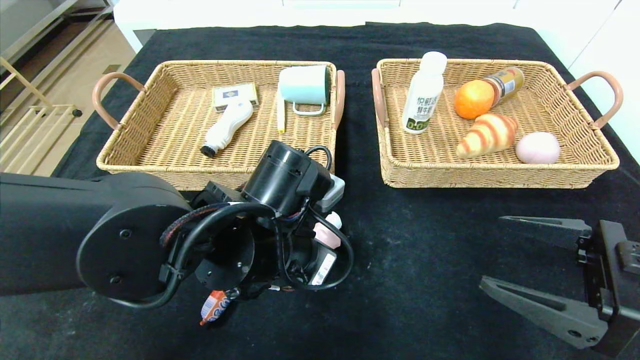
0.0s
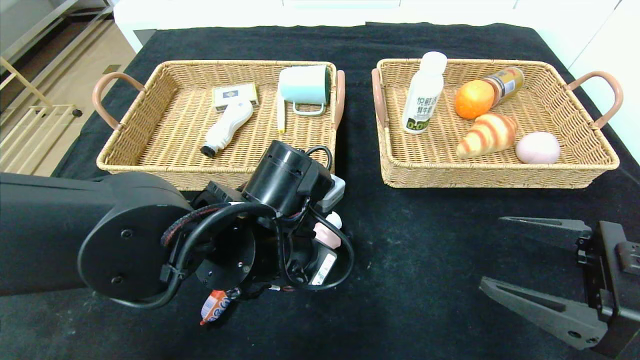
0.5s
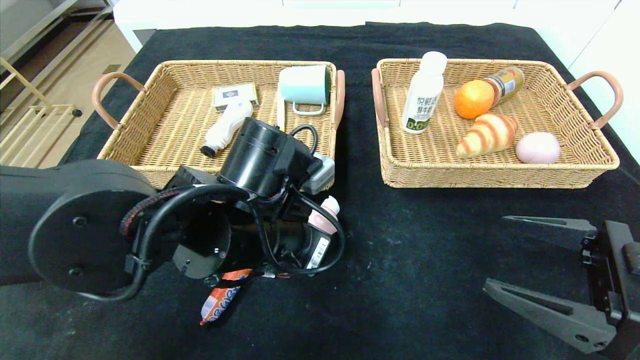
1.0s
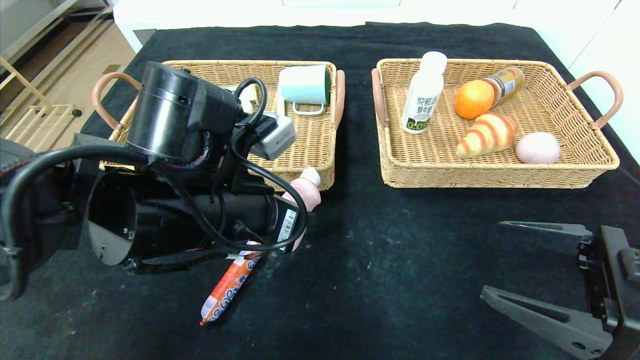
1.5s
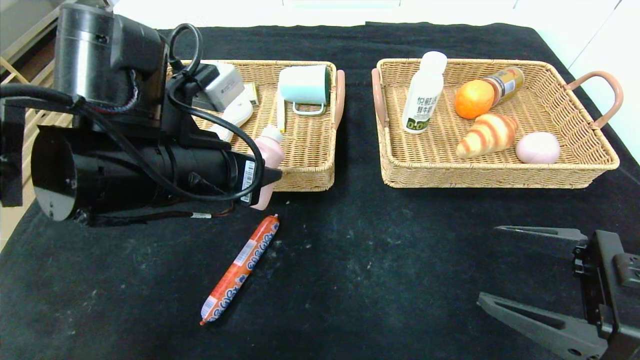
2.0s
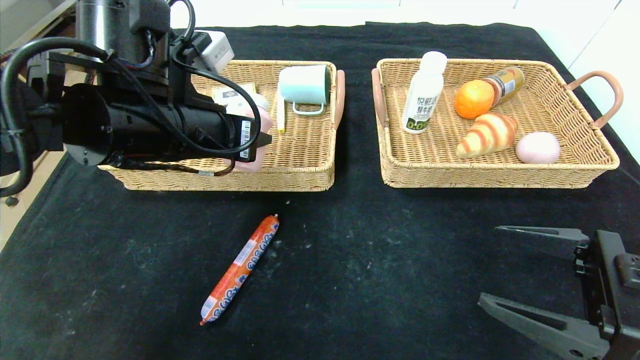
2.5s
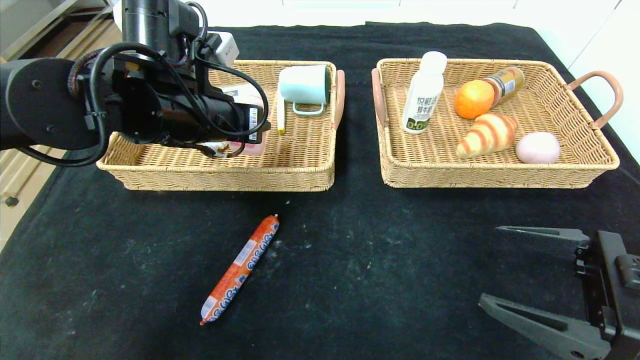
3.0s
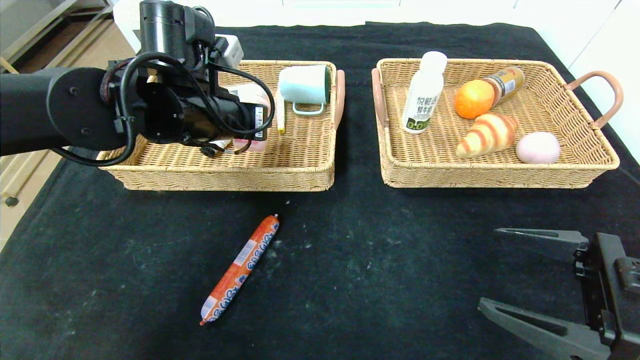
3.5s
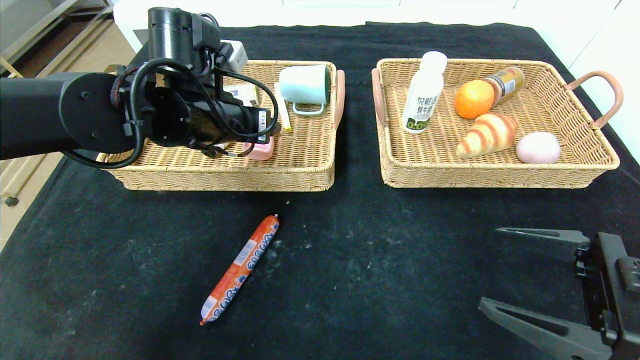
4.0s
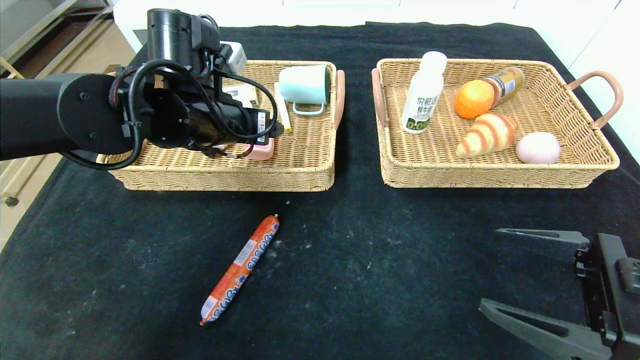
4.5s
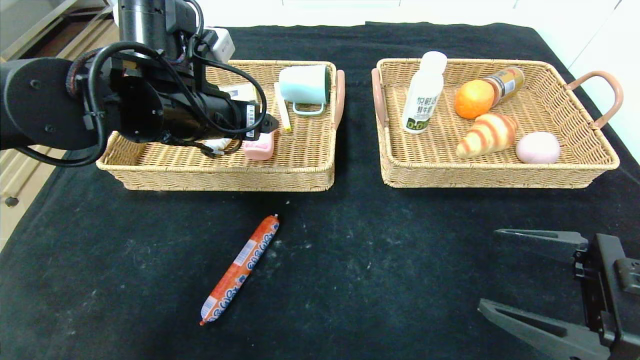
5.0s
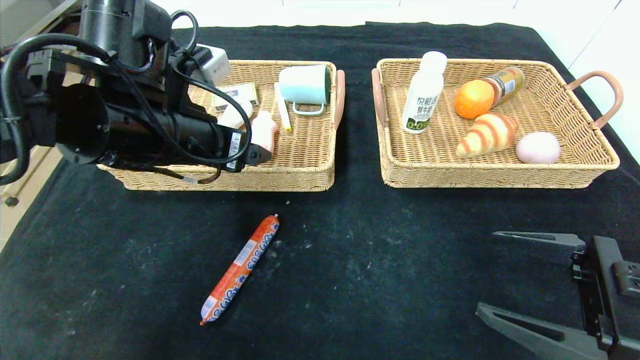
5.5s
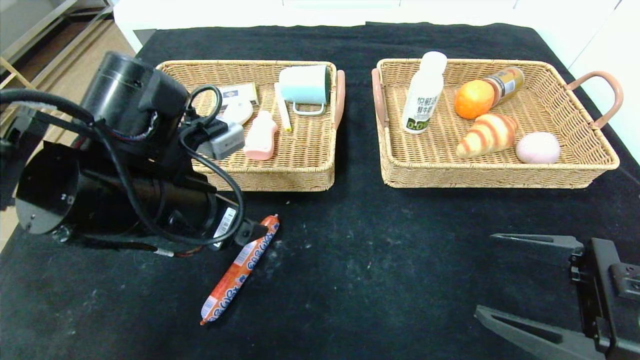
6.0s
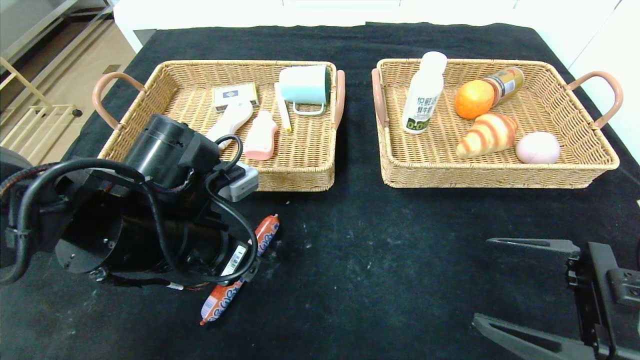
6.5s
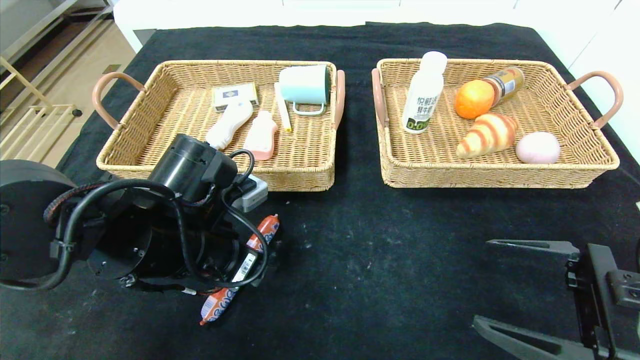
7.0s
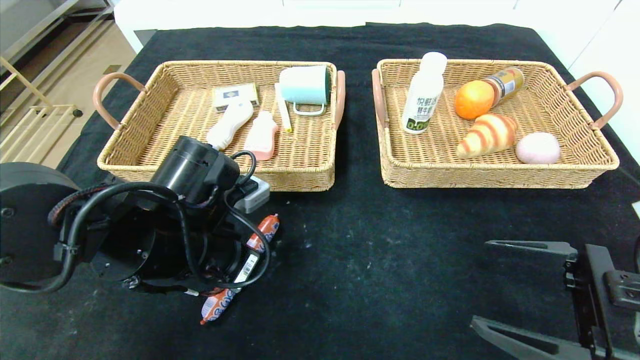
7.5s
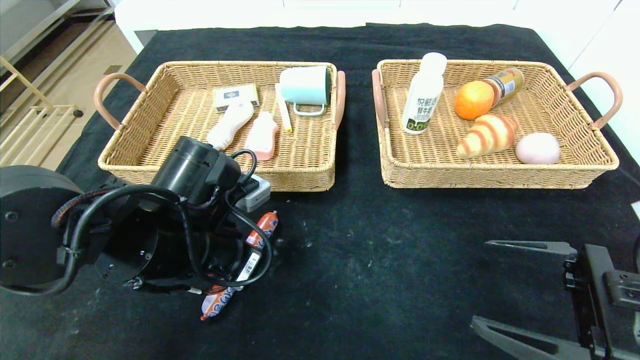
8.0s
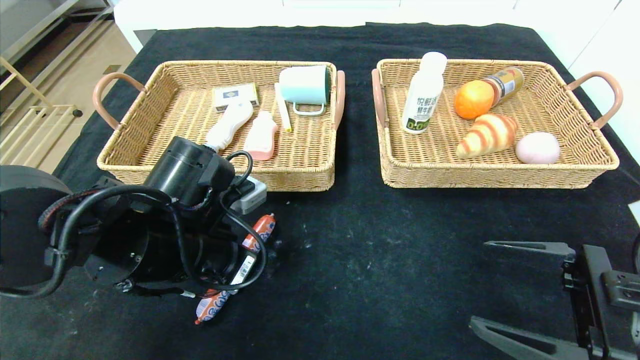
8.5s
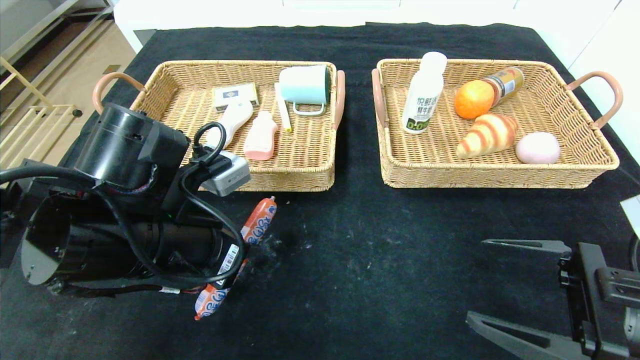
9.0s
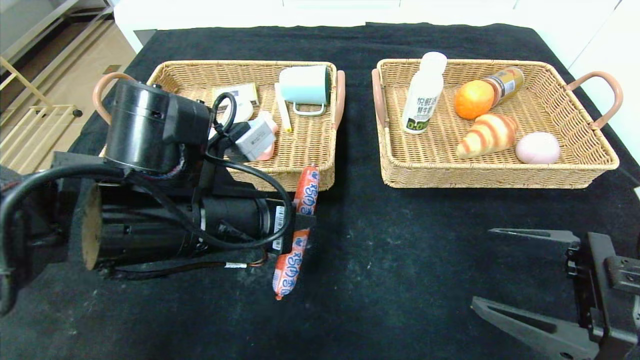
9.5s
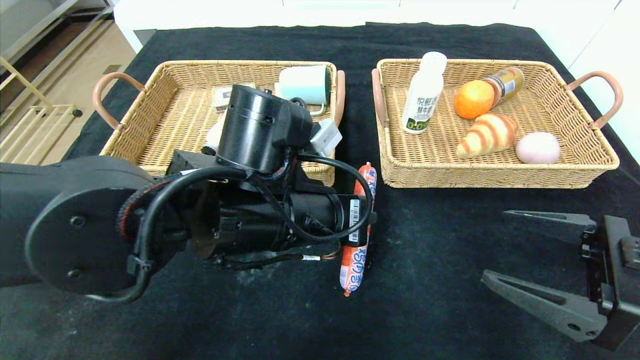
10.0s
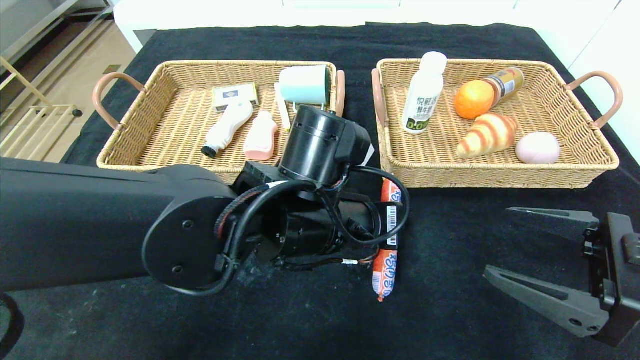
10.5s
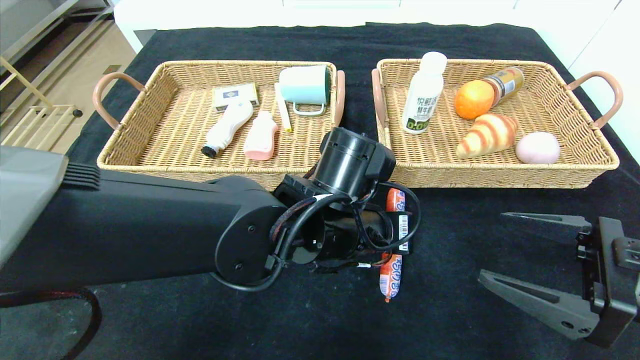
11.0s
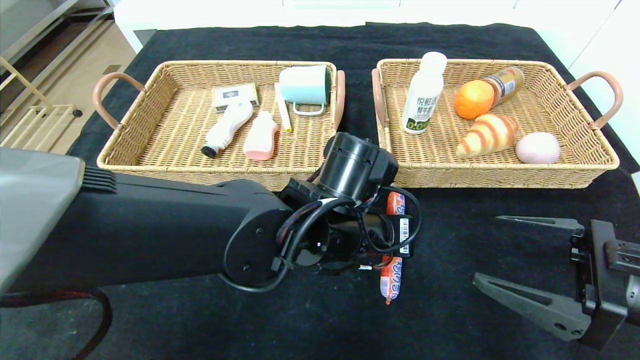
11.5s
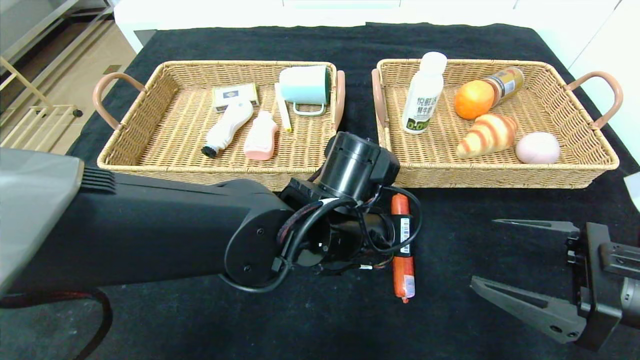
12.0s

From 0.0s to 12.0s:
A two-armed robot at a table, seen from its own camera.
Step, from 0.0s to 3.5s: Grasp the detergent and put it in the left basket.
From 0.0s to 2.0s: The left gripper heads upward and to the left, covering roughly 10 cm.
From 2.0s to 4.0s: The left gripper goes roughly 10 cm forward, and opens up.
From 4.0s to 6.0s: The left gripper is displaced backward by some 10 cm.
From 6.0s to 8.0s: The left gripper shifts approximately 5 cm downward, and closes.
From 8.0s to 10.0s: The left gripper heads to the right, covering approximately 10 cm.
From 10.0s to 12.0s: The left gripper shifts approximately 5 cm to the right, and opens its fingers.

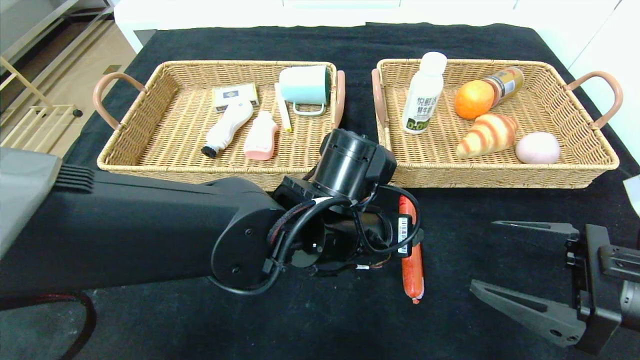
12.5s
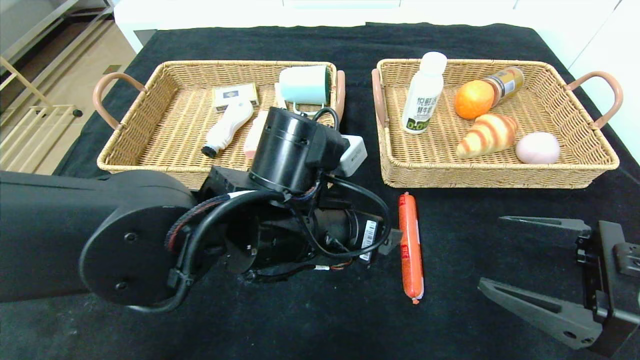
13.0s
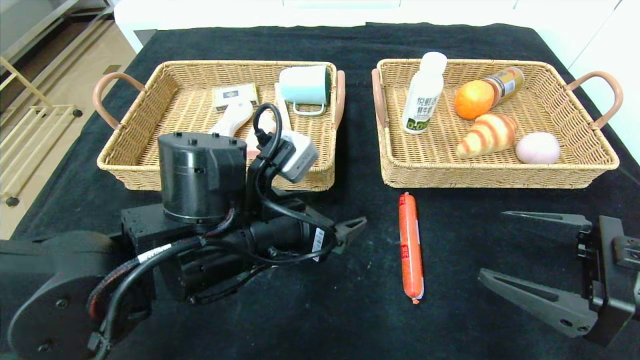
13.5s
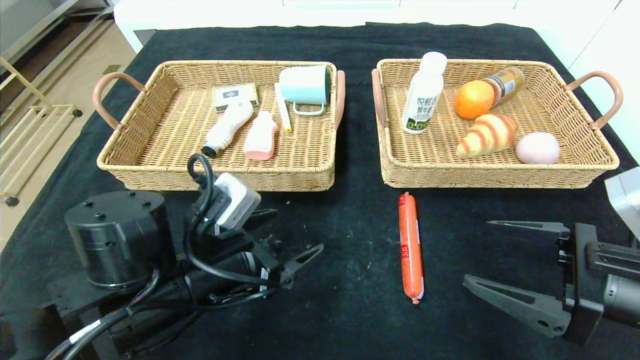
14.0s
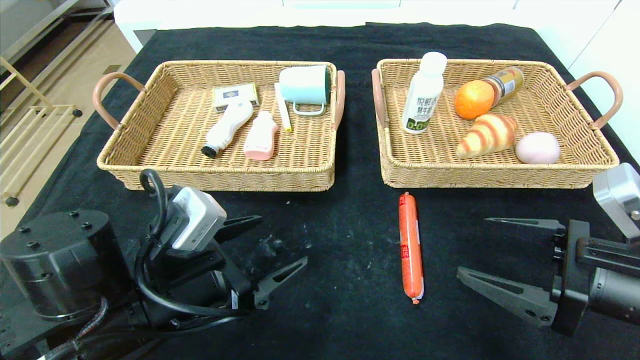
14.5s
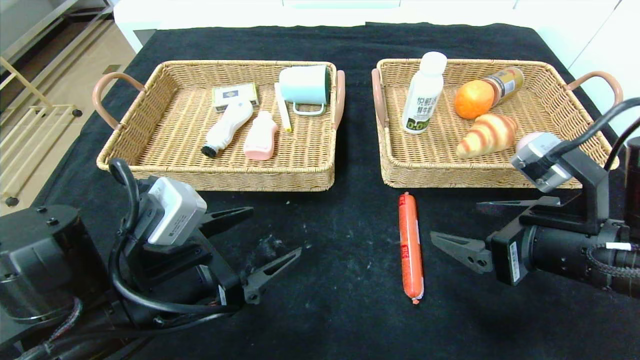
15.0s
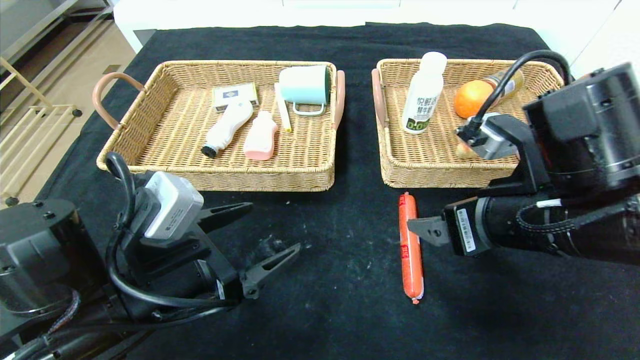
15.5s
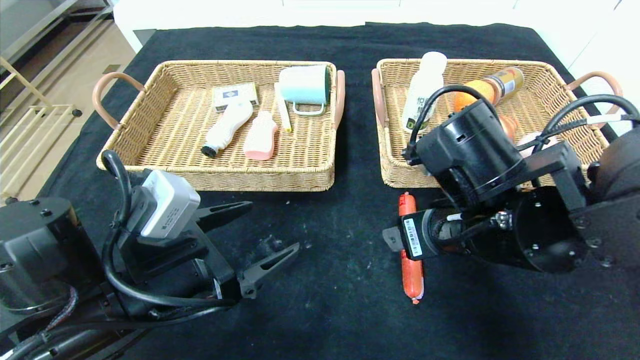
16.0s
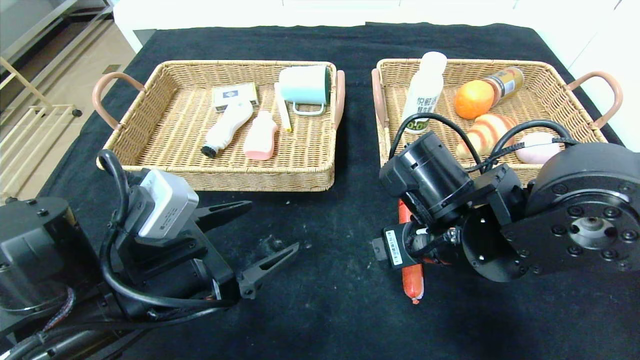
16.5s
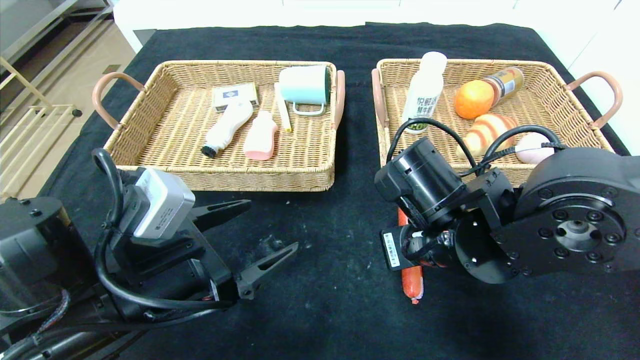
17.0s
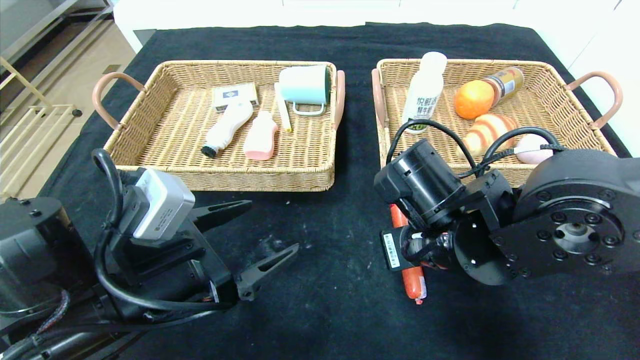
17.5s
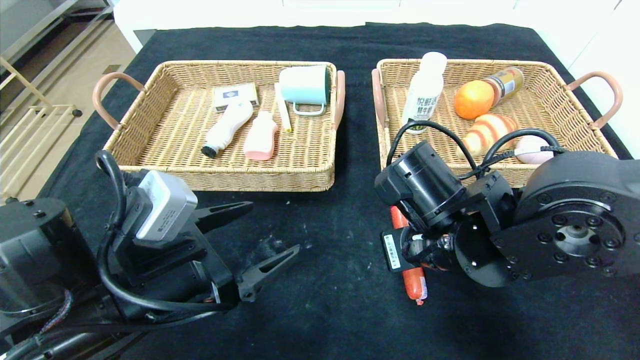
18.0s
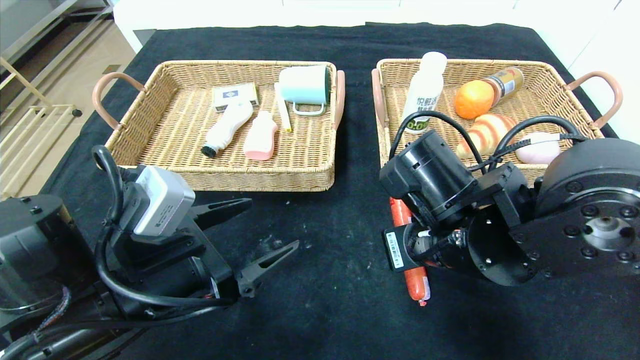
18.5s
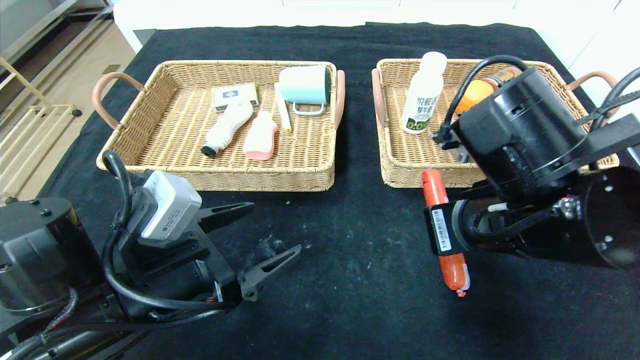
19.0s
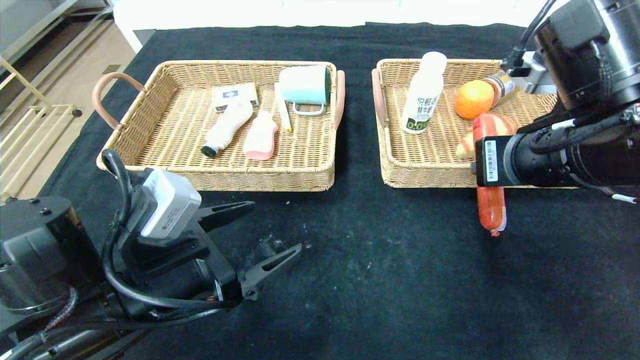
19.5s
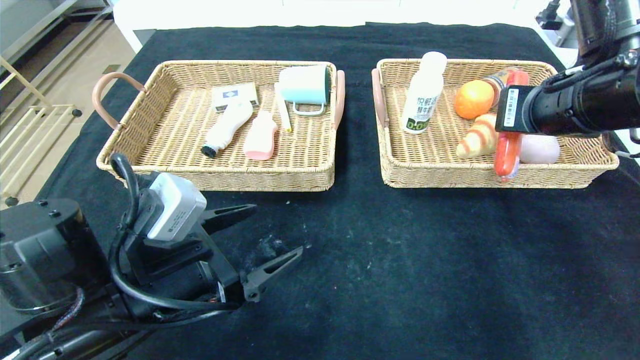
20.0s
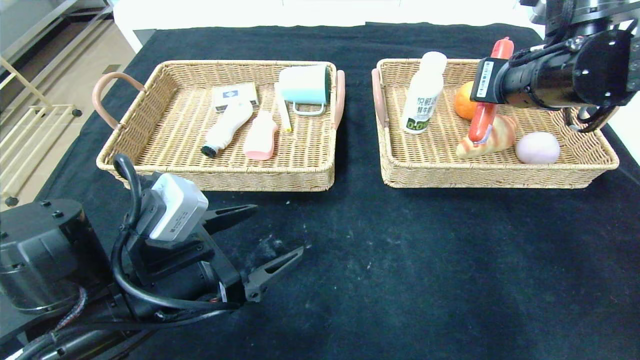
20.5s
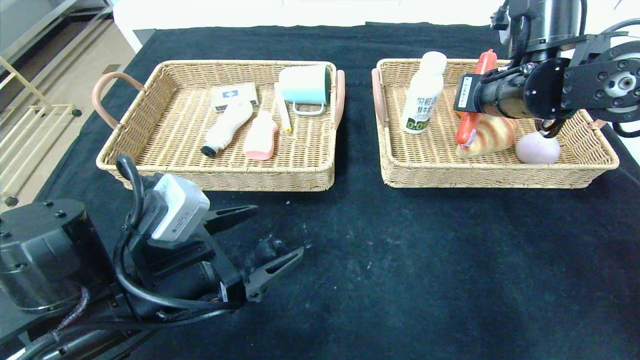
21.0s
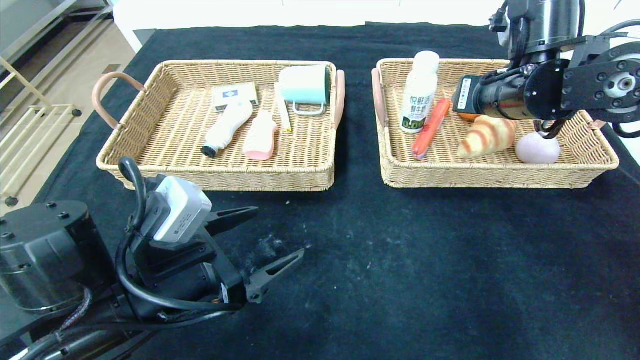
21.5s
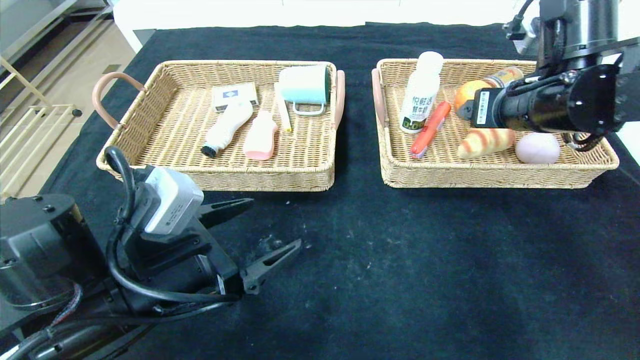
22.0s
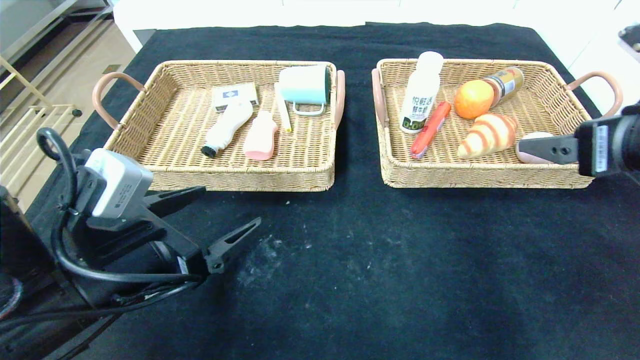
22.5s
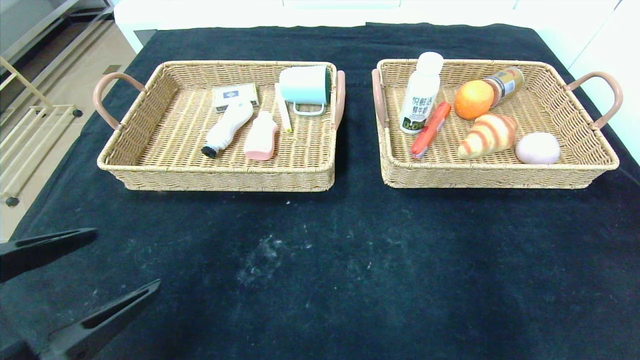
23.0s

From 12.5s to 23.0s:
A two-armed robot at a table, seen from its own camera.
Step, from 12.5s to 21.5s: Grasp the sausage and put it in the right basket.
From 12.5s to 14.5s: The left gripper goes approximately 15 cm to the left.
From 14.5s to 16.5s: The right gripper goes roughly 15 cm to the left and forward.
From 16.5s to 19.0s: The right gripper moves upward, some 5 cm, and closes its fingers.
From 19.0s to 21.0s: The right gripper moves forward and to the right, roughly 15 cm.
From 21.0s to 23.0s: The left gripper moves backward, to the left and upward, about 15 cm. Meanwhile the right gripper shifts about 30 cm backward and to the right, and opens.
